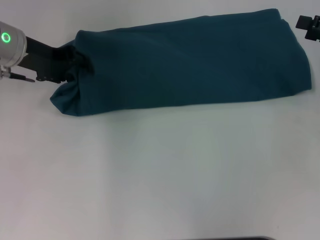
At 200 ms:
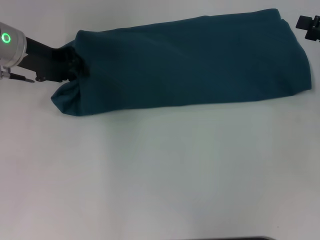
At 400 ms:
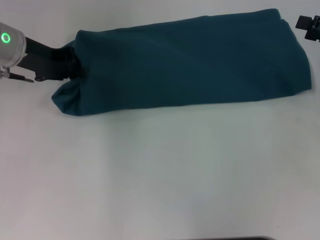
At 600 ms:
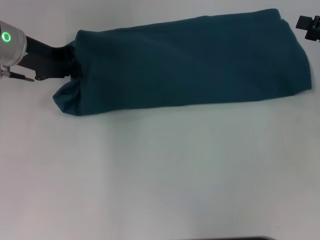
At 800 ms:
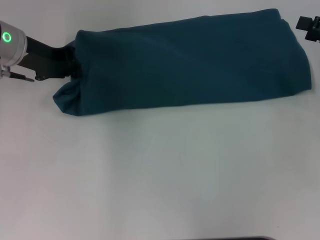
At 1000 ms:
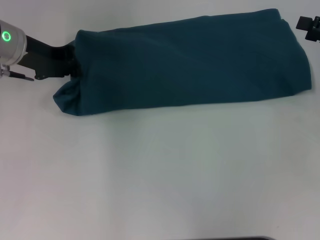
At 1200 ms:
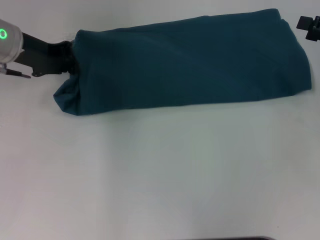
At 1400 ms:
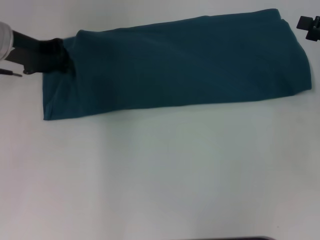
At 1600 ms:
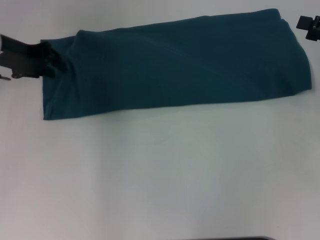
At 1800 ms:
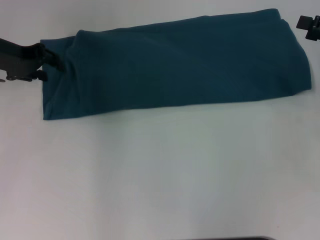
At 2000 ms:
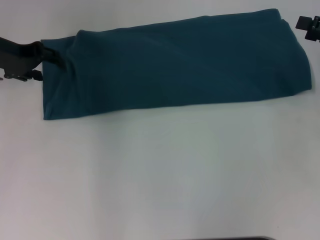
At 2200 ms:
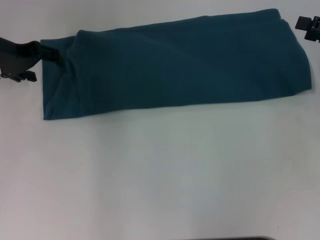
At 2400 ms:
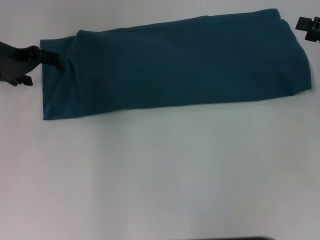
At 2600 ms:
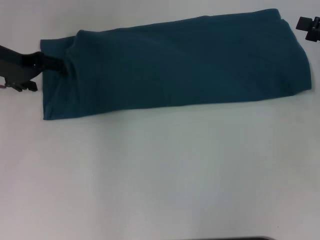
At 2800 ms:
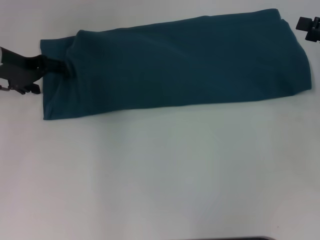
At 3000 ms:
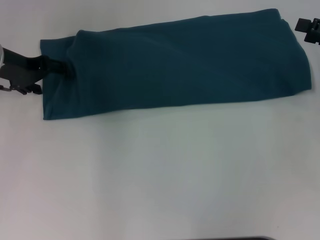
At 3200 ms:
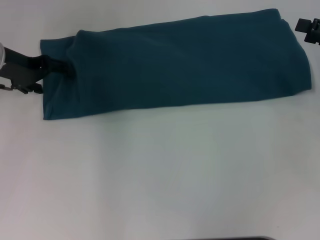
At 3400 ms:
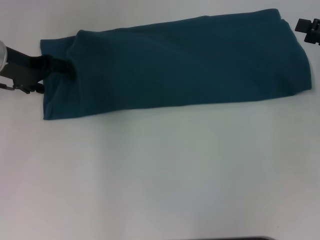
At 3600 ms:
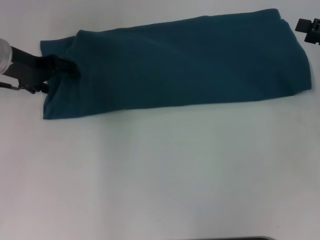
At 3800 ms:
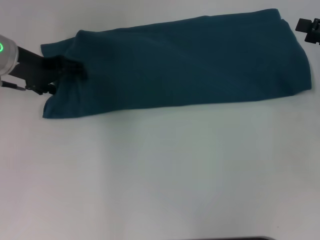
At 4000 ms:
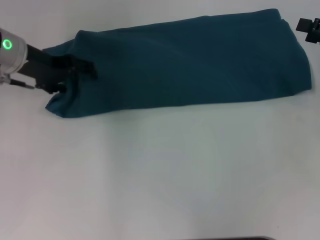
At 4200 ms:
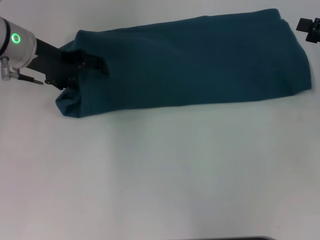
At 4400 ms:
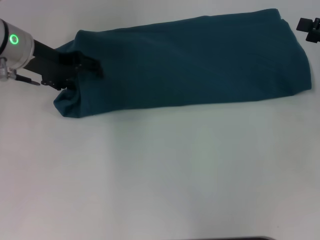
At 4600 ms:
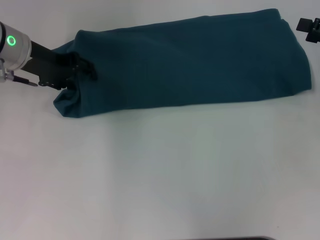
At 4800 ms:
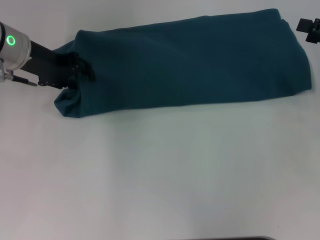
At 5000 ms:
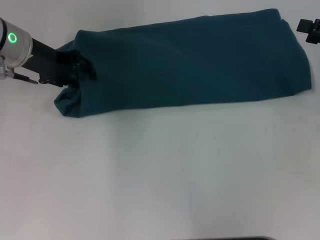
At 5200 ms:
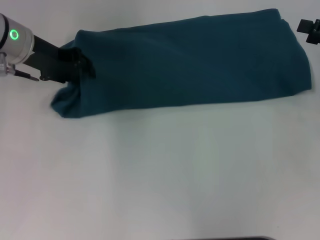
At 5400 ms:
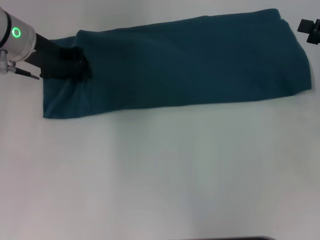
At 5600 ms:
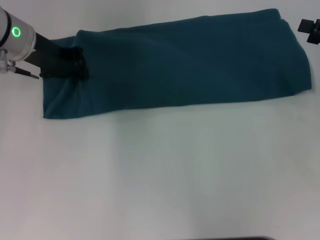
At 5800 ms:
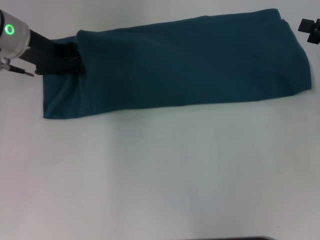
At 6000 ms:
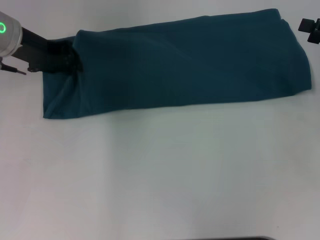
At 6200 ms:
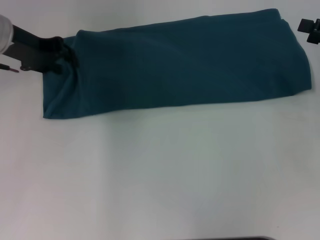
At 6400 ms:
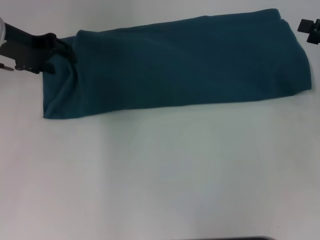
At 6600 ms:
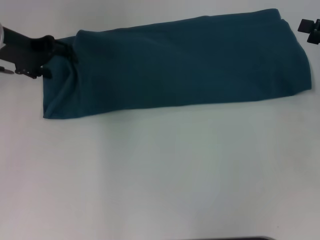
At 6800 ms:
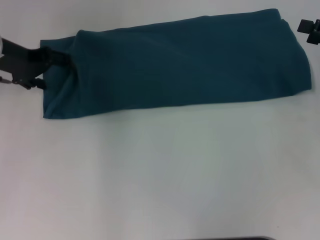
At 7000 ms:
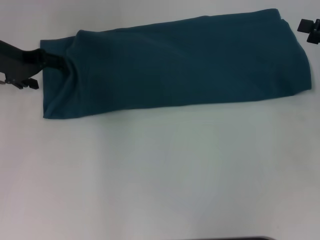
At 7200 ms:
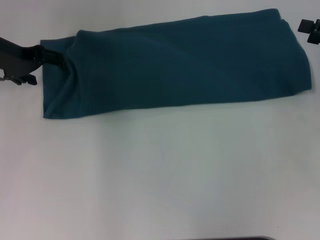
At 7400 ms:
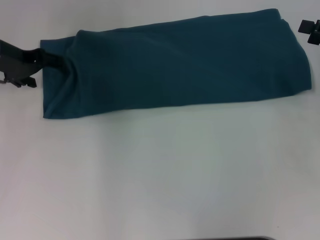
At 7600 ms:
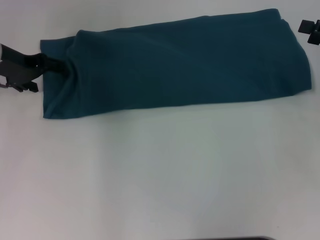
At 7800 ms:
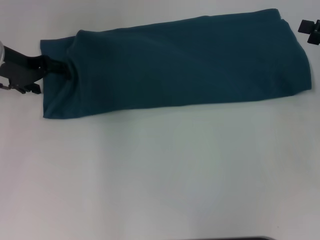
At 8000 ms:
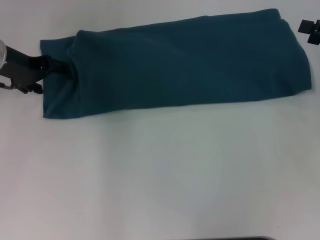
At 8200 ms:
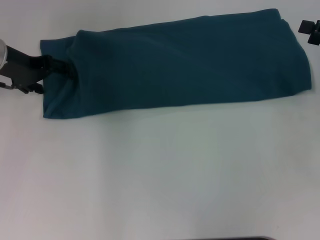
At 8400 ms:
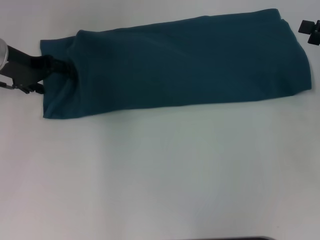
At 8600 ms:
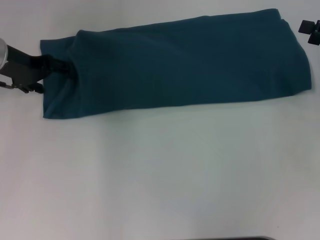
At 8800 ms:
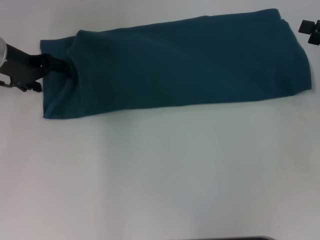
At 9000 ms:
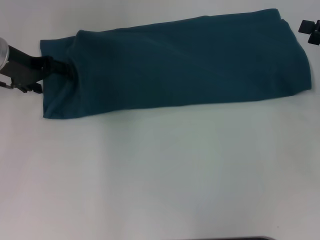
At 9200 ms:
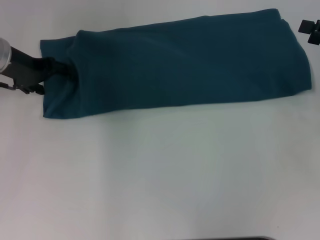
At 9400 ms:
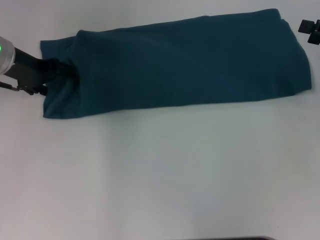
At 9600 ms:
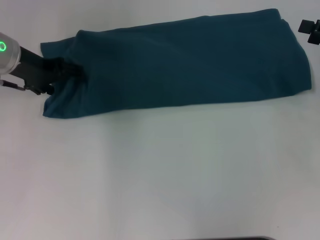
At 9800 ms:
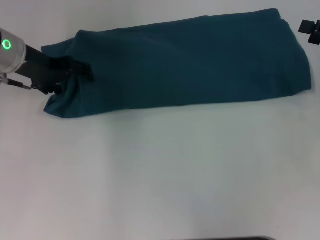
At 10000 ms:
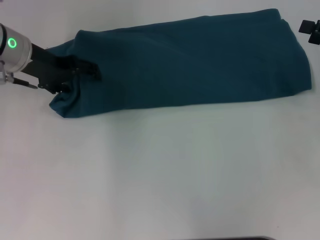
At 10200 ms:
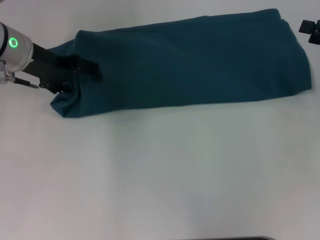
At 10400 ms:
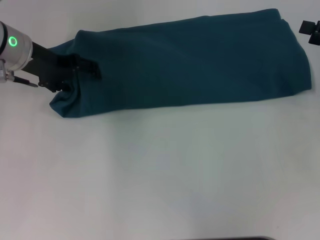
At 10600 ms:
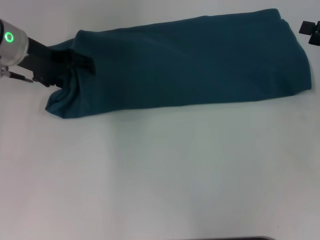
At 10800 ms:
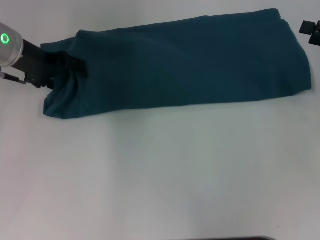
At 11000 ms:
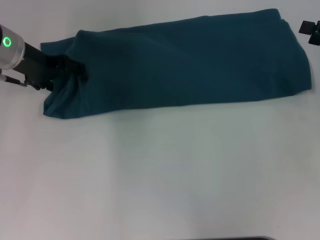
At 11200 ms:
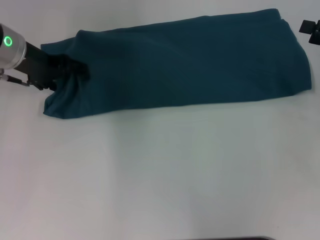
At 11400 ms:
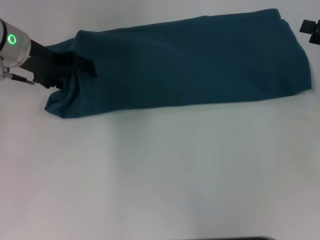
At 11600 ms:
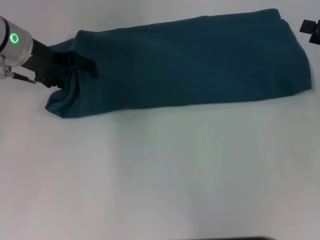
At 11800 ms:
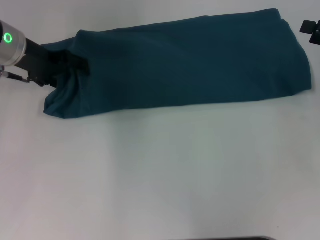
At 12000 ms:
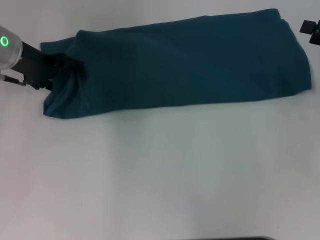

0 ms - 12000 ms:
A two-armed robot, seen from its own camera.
0 ms - 1600 ms: The left gripper closes up.
1600 ms - 3000 ms: The left gripper opens its fingers.
3000 ms - 4400 ms: The grippers make only small movements.
4400 ms - 6000 ms: The left gripper closes.
6000 ms - 7600 ms: The left gripper opens.
7600 ms - 9000 ms: Neither gripper changes place.
9000 ms - 12000 ms: The grippers make only small movements.

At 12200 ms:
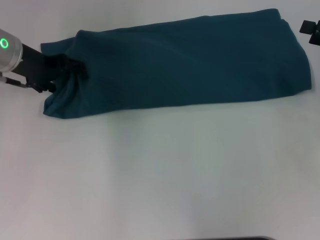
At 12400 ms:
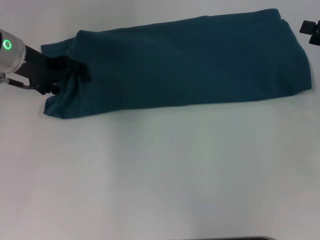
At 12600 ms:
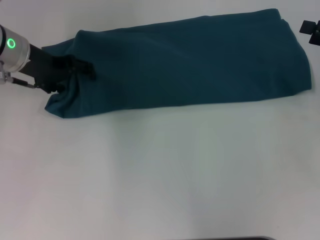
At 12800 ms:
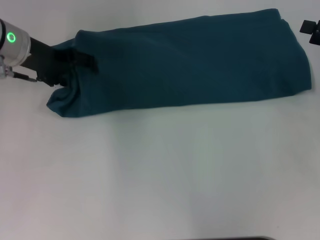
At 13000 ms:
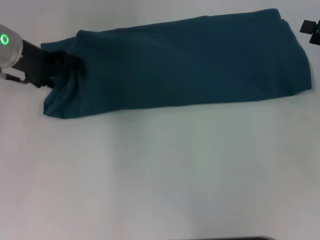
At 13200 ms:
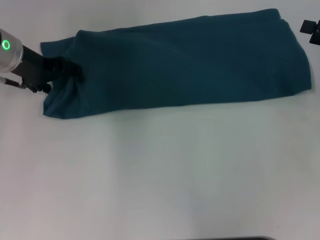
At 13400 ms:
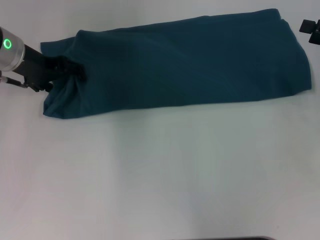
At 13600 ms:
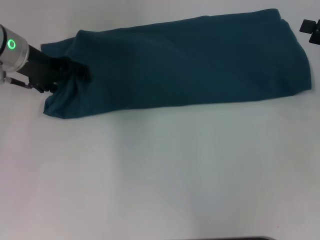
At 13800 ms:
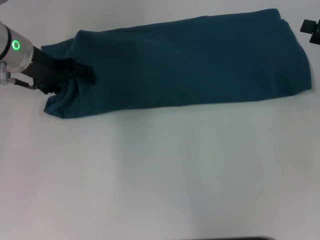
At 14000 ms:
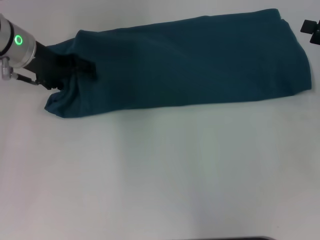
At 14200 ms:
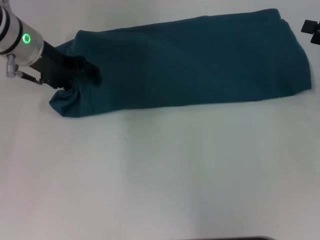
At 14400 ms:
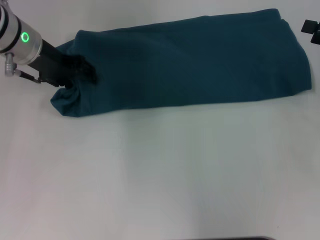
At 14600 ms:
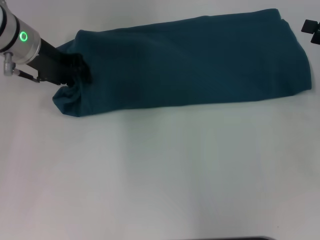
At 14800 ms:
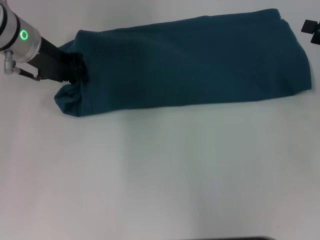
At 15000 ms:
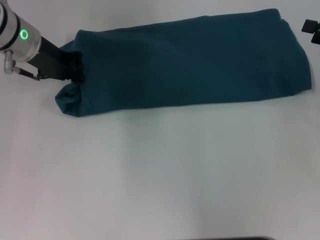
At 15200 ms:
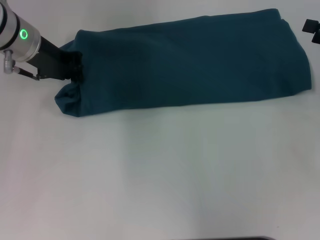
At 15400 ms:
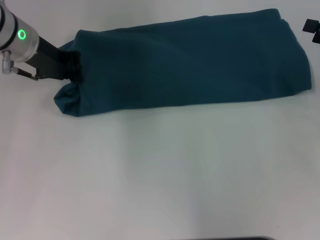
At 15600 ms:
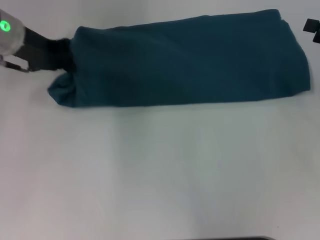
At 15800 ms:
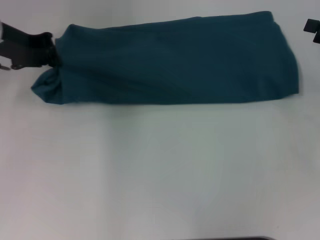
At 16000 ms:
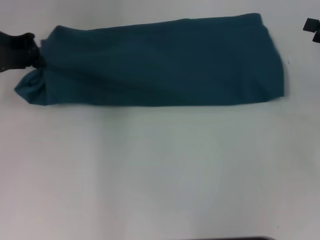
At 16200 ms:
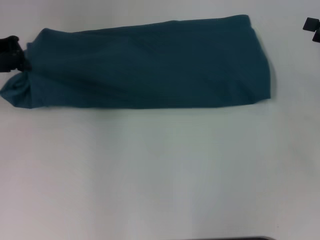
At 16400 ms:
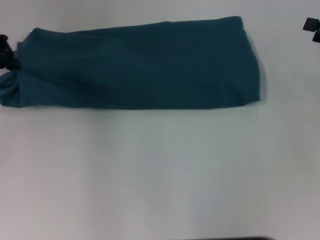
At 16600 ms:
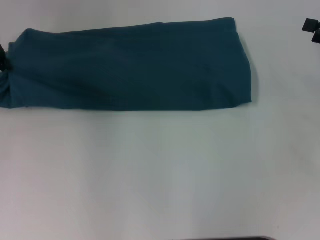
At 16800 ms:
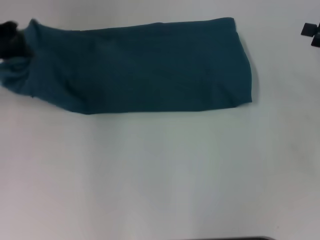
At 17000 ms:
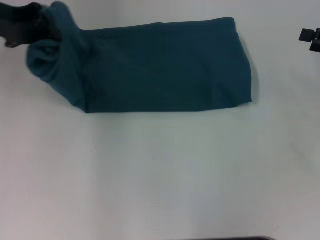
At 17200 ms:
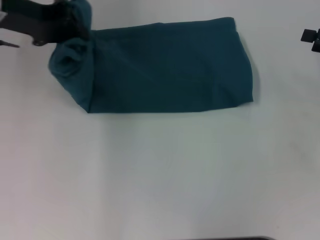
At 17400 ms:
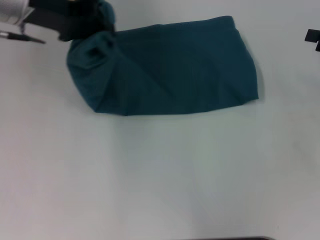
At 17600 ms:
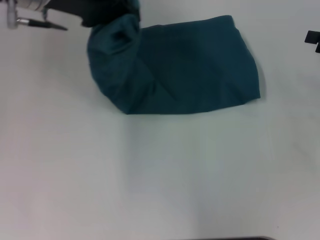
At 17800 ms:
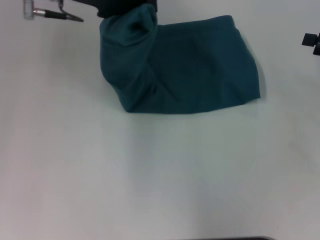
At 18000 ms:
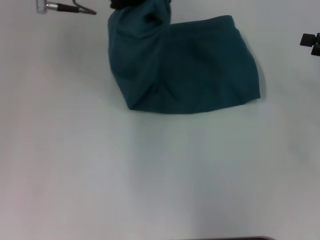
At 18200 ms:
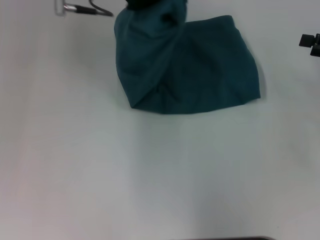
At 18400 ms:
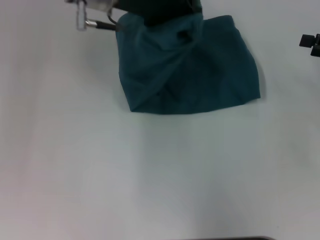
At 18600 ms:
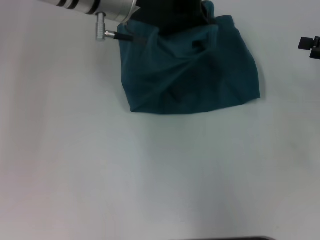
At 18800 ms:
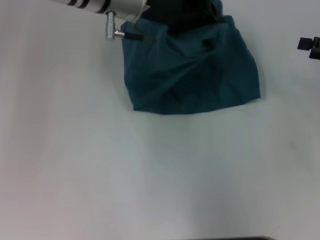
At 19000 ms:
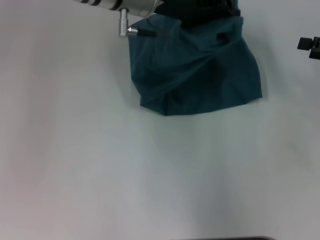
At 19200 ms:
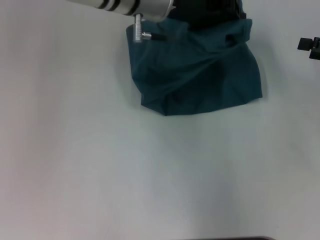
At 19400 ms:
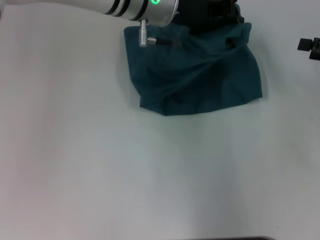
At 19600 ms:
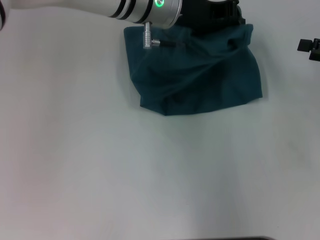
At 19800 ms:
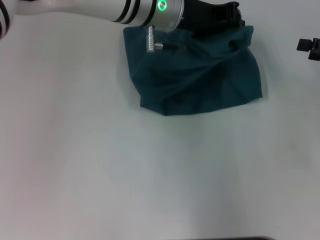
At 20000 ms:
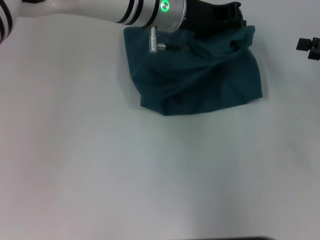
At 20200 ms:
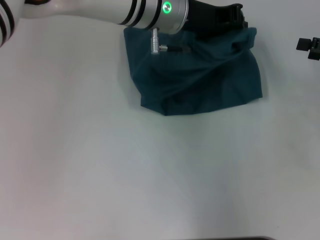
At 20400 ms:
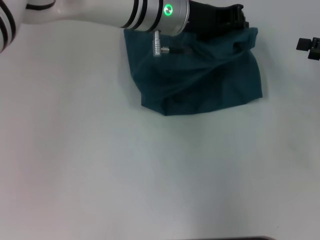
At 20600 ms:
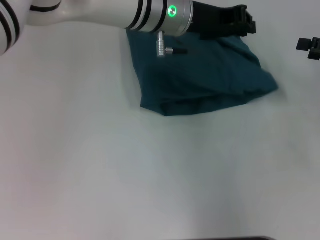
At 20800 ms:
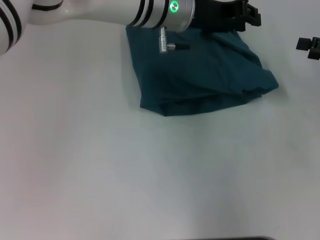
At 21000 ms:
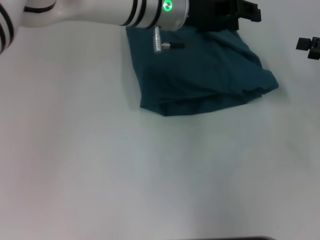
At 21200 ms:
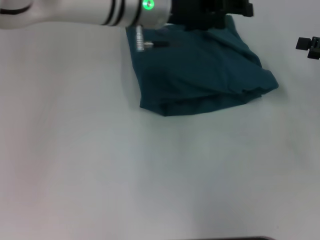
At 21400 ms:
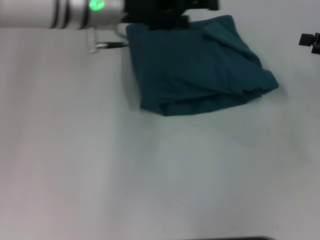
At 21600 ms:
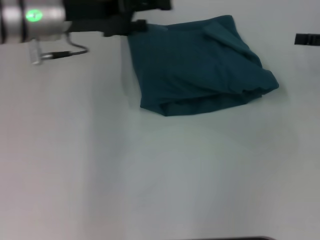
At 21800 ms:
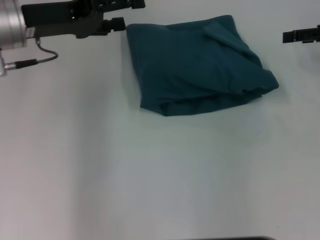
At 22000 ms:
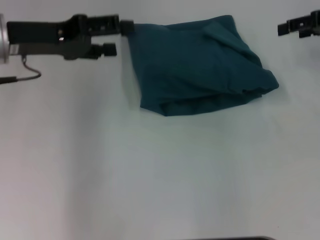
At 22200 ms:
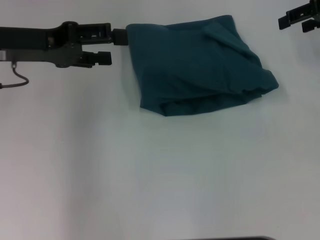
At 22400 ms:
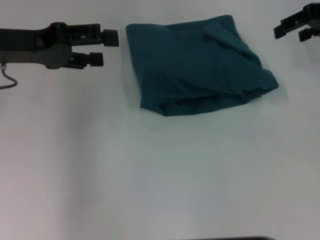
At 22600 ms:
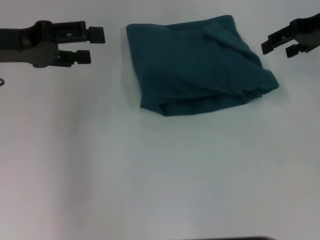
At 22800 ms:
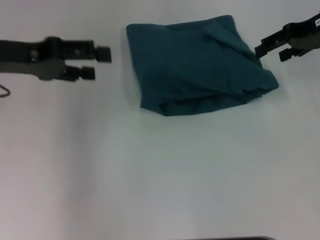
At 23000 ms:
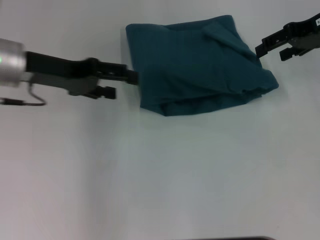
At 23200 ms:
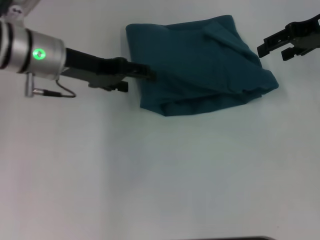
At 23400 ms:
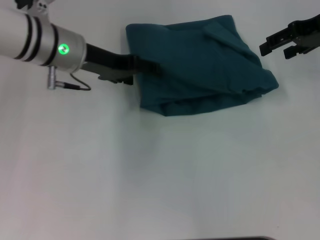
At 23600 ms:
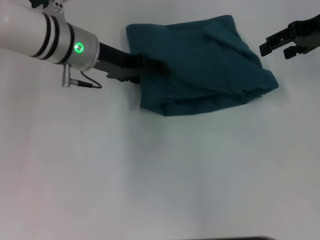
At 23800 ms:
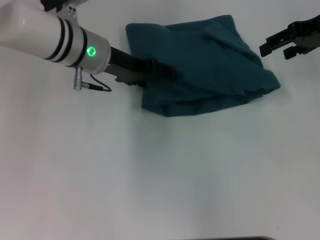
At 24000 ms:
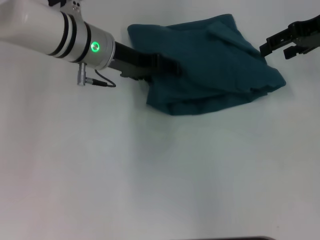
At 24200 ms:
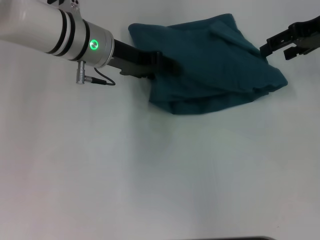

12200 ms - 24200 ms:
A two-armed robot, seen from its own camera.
Step, 12200 ms - 20600 ms: Fold the clothes to the left.
12200 ms - 13800 ms: The grippers stay close to where they were, moving slightly.
13800 ms - 15200 ms: The left gripper closes its fingers.
15200 ms - 16600 ms: The left gripper goes roughly 10 cm to the left.
16600 ms - 18200 ms: The left gripper shifts about 20 cm to the right.
18200 ms - 19800 ms: The left gripper goes about 10 cm to the right and downward.
19800 ms - 21200 ms: The left gripper opens its fingers.
21200 ms - 22600 ms: The left gripper moves to the left, roughly 20 cm, and opens up. The right gripper shifts roughly 15 cm forward, to the left and upward.
22600 ms - 24200 ms: The left gripper goes roughly 15 cm to the right and forward.
